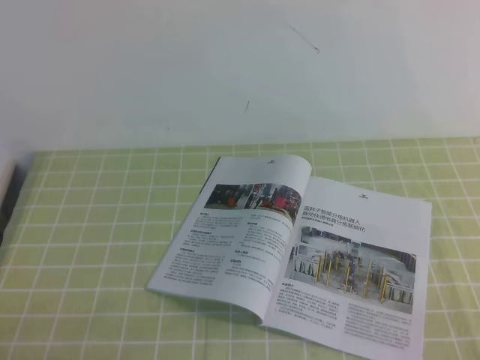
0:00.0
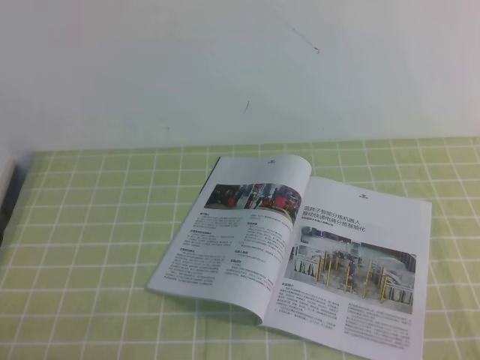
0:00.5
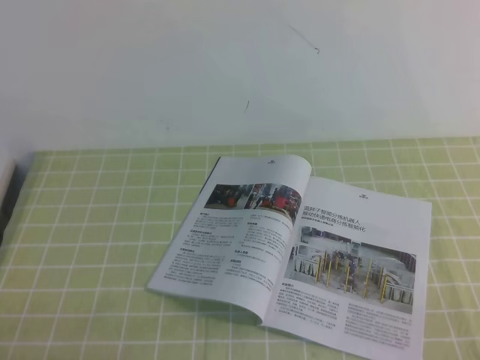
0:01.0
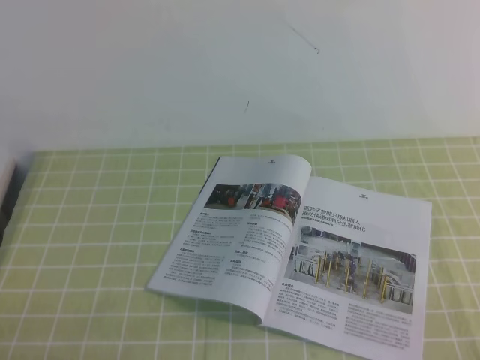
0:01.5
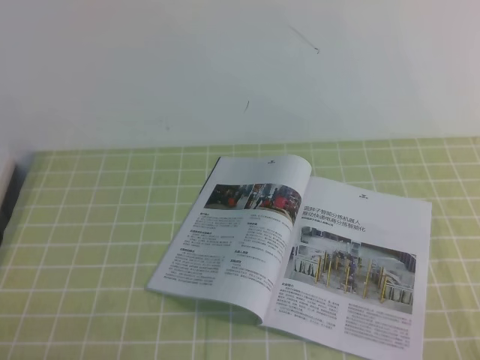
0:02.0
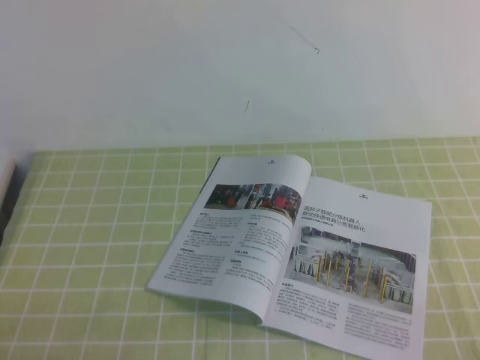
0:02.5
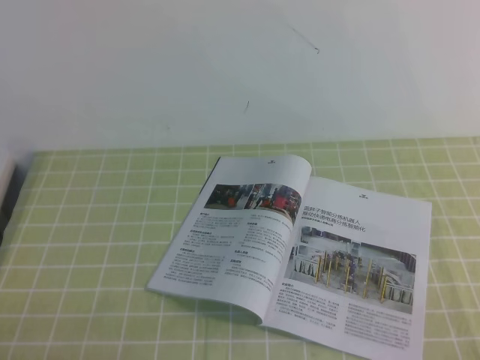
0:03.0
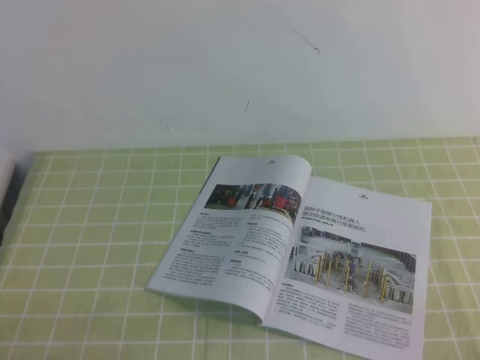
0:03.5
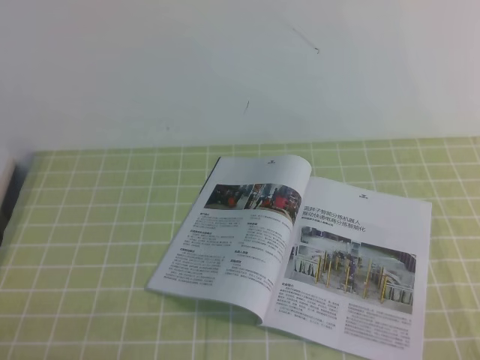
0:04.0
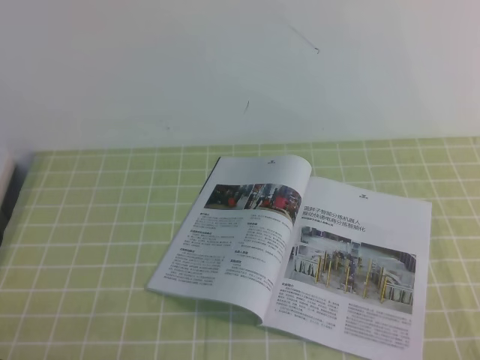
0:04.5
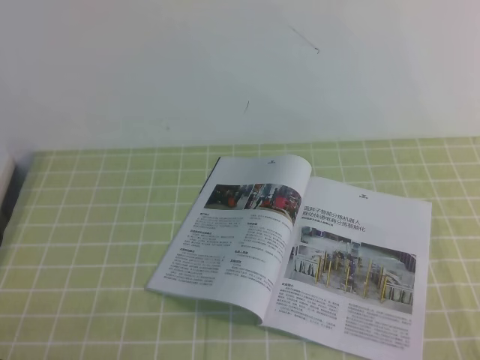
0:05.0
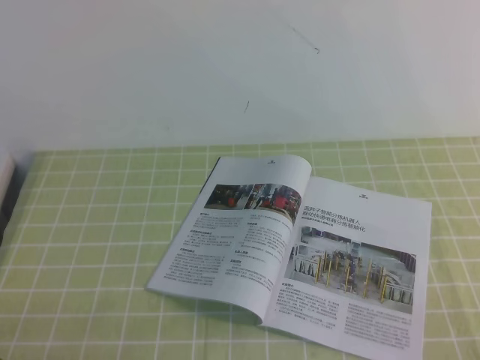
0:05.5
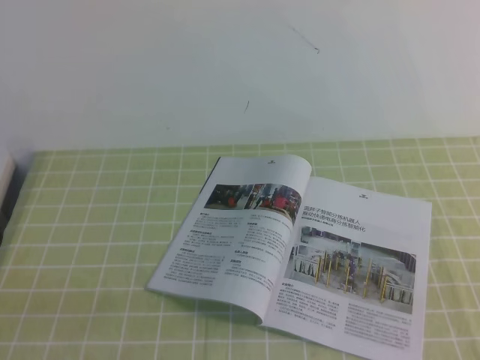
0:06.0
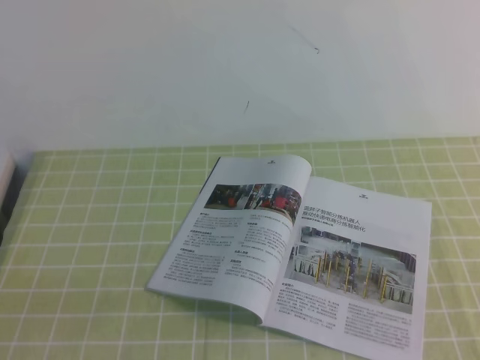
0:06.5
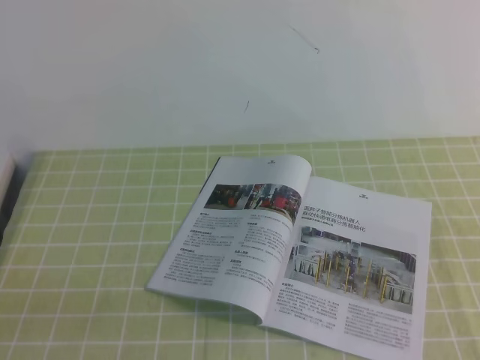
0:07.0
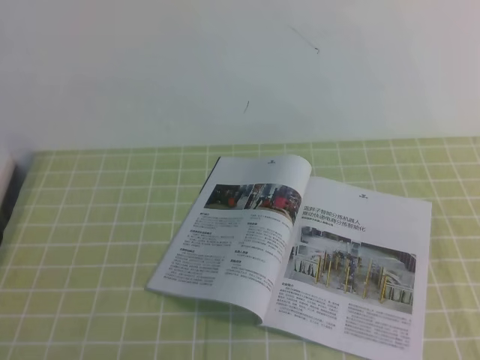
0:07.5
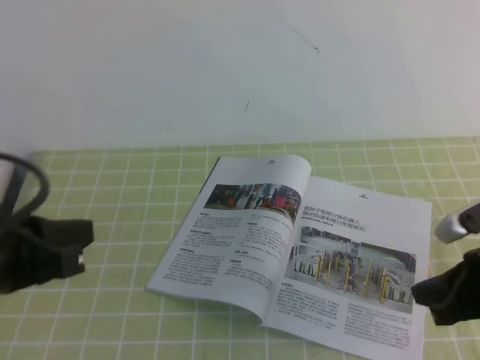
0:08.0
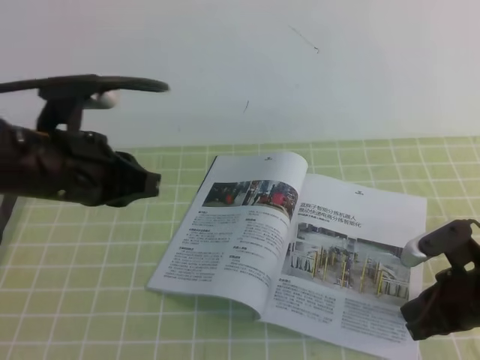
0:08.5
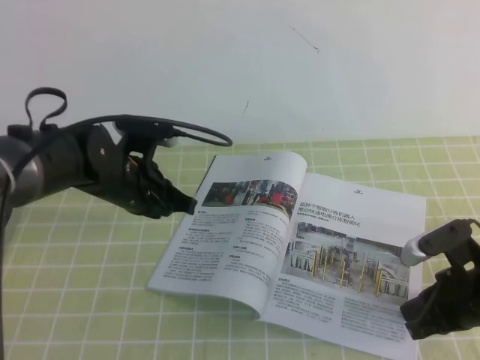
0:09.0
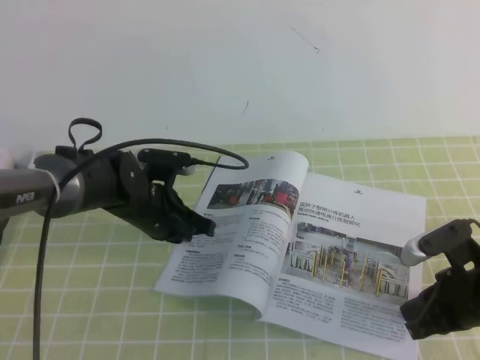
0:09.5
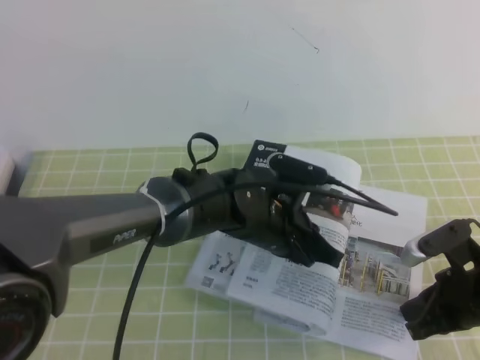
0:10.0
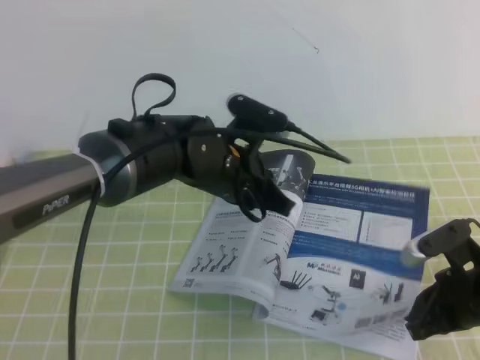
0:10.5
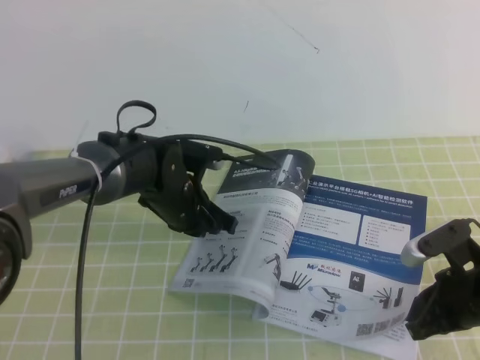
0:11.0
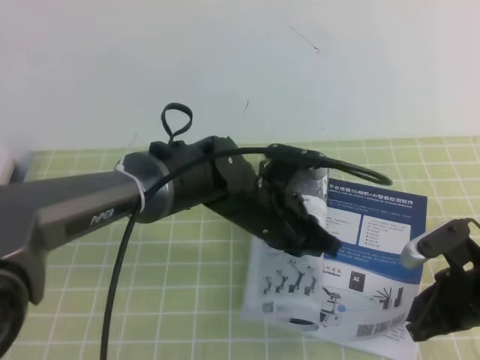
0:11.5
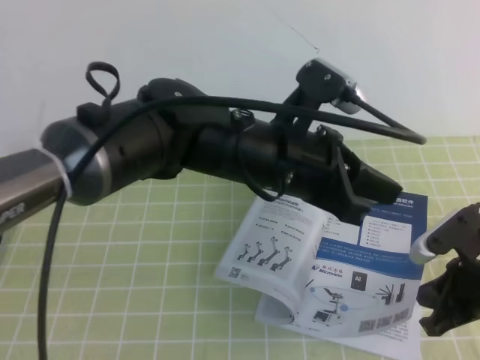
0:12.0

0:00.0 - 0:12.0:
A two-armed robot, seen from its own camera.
Task of the whole recording: on the green tablecloth, hold the book with one hand and close it with the other.
0:00.0 - 0:02.0: The two grippers keep their place.
0:02.0 - 0:04.0: Both grippers stay put.
0:06.0 - 0:08.0: The left gripper is displaced forward and upward by some 15 cm. Meanwhile the right gripper shifts roughly 20 cm forward.
0:08.0 - 0:10.0: The left gripper moves to the right, forward and downward, roughly 30 cm. The right gripper goes roughly 5 cm downward.
0:10.0 - 0:12.0: The left gripper swings up and down, about 10 cm each way, with 2 reversals.

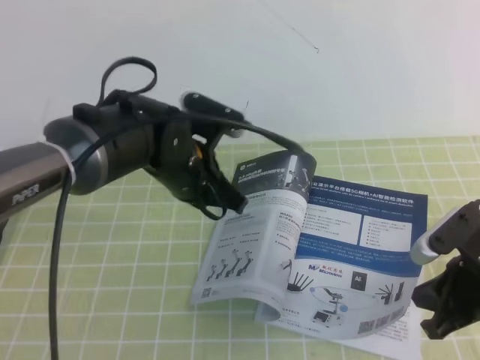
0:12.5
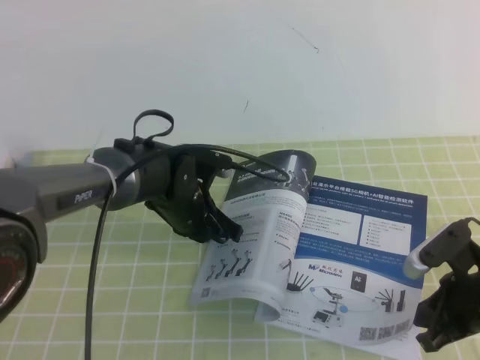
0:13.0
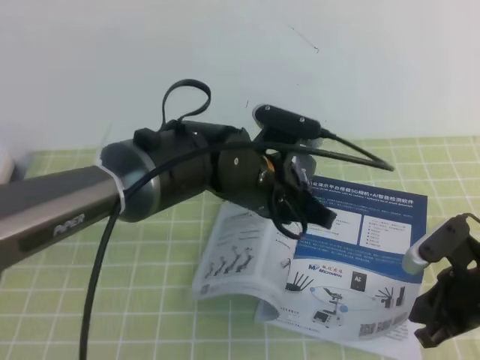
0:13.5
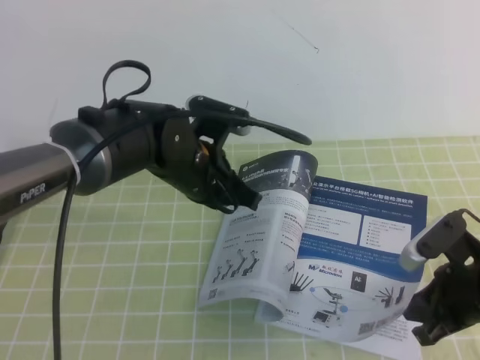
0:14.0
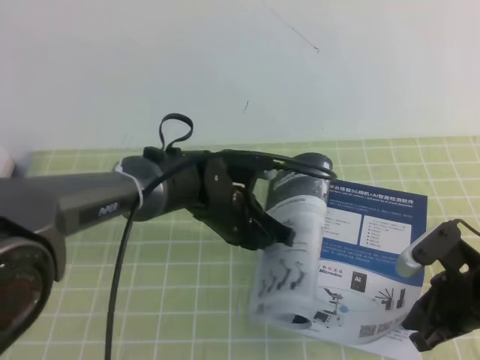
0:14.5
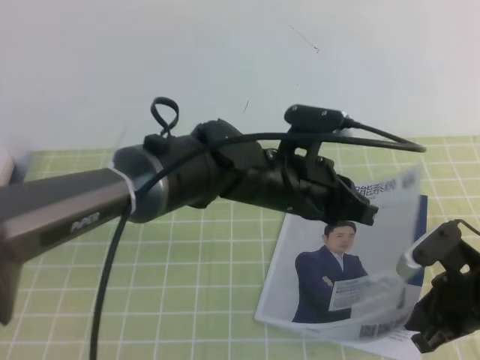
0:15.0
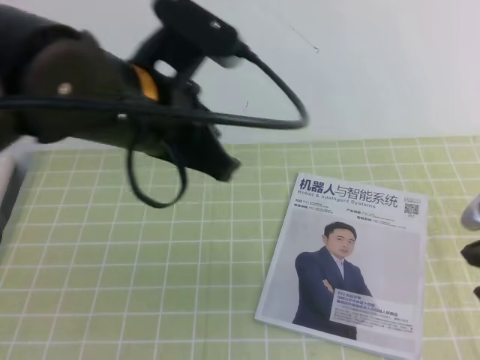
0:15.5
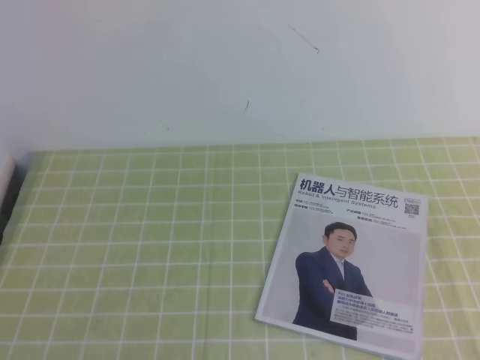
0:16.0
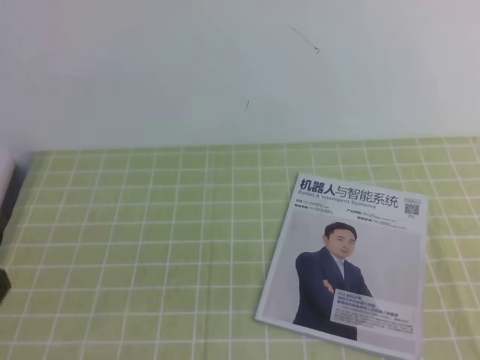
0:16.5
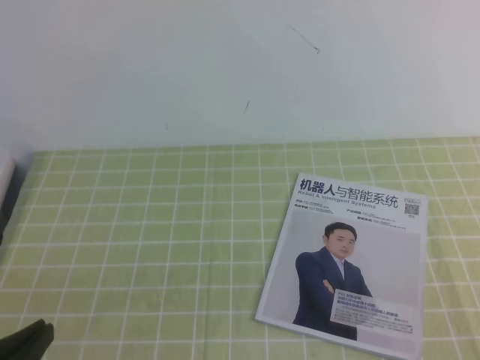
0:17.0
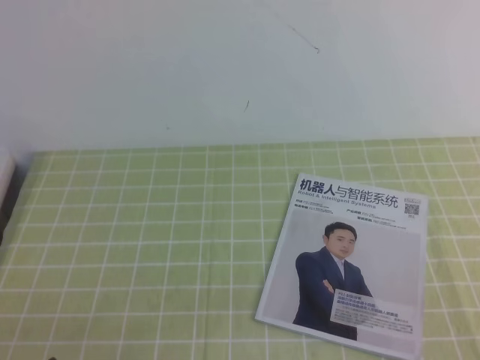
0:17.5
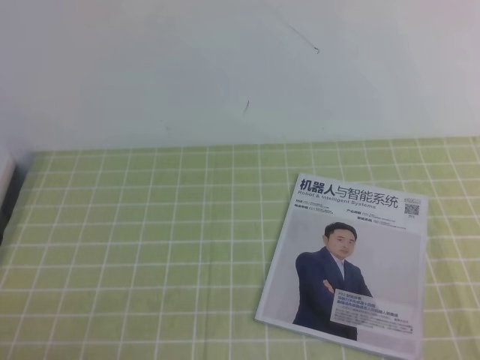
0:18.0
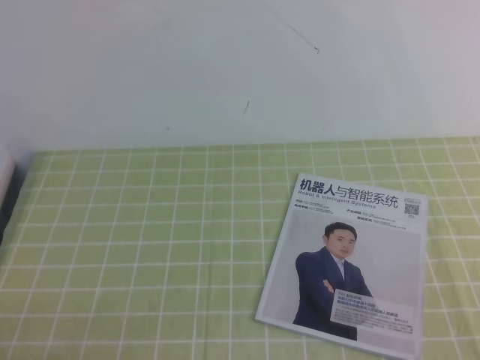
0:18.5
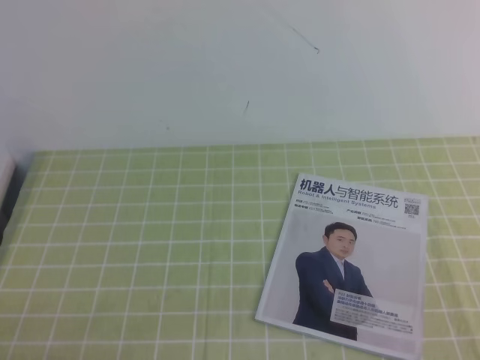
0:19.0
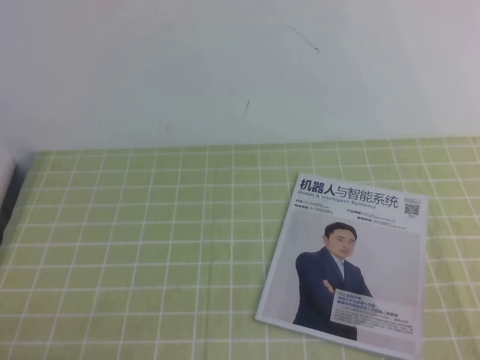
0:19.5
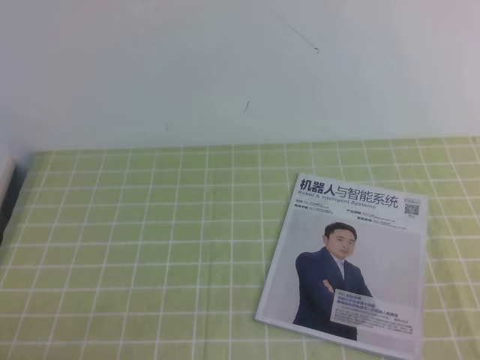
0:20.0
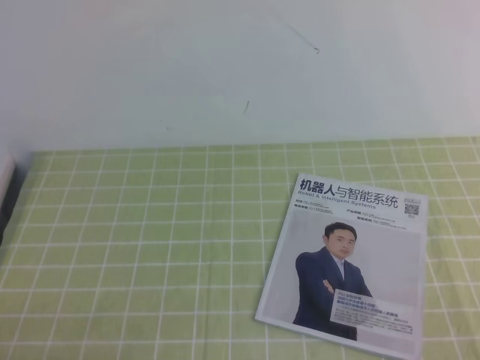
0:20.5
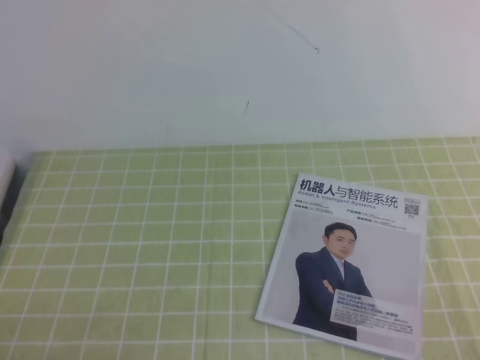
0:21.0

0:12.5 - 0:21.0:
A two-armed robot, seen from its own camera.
Task of the whole recording: on the green tablecloth, hold the book with one hand and close it with the other.
Step, 0:12.5 - 0:21.0: Close the open book.
0:12.5 - 0:14.5: The left gripper swings up and down, approximately 10 cm each way, with 2 reversals.
0:14.5 - 0:16.5: The right gripper travels backward and upward by about 25 cm. The left gripper moves backward, to the left and upward, approximately 40 cm.
